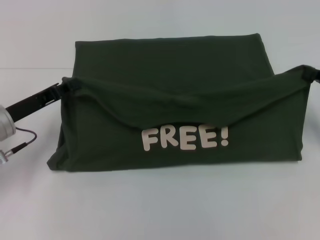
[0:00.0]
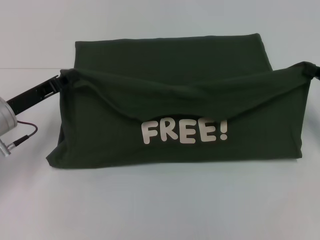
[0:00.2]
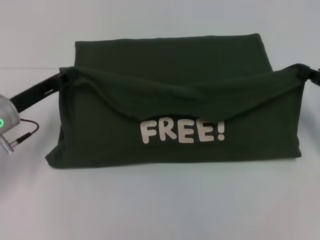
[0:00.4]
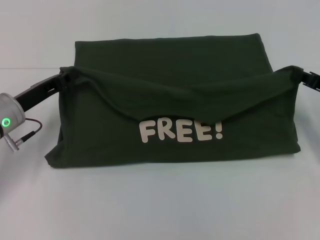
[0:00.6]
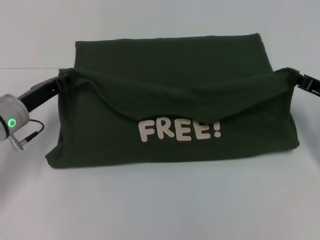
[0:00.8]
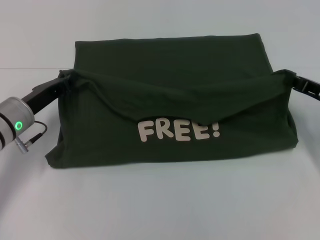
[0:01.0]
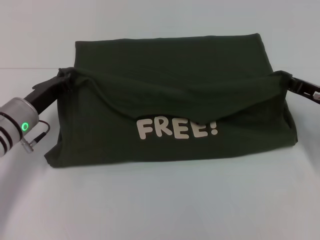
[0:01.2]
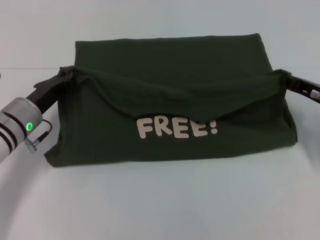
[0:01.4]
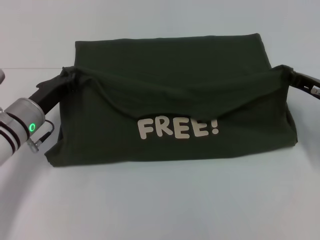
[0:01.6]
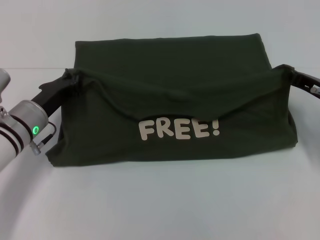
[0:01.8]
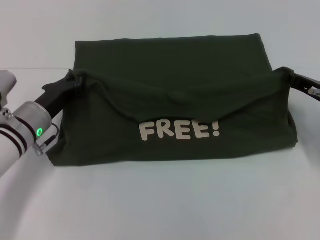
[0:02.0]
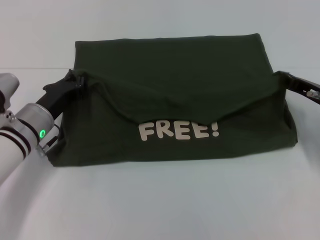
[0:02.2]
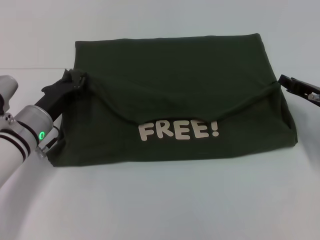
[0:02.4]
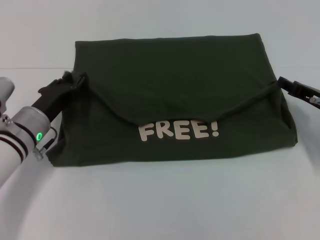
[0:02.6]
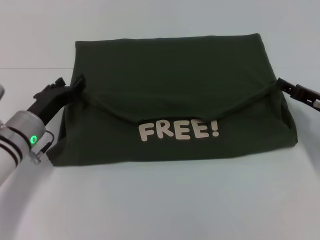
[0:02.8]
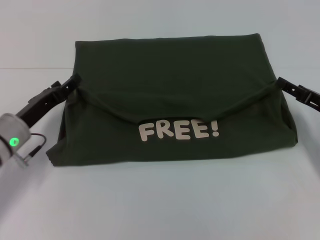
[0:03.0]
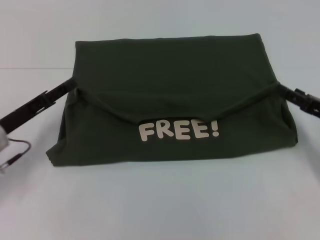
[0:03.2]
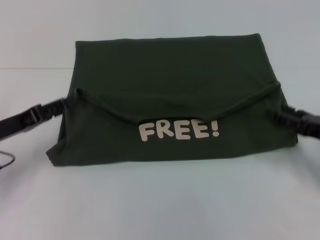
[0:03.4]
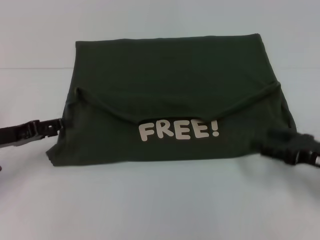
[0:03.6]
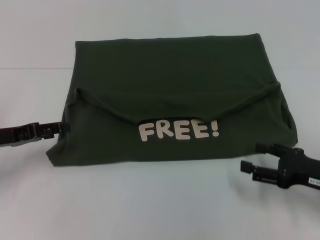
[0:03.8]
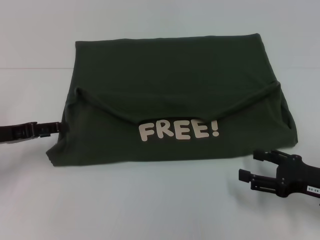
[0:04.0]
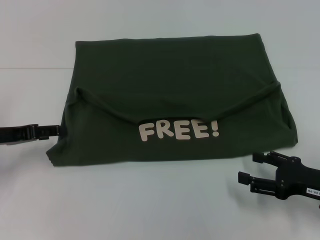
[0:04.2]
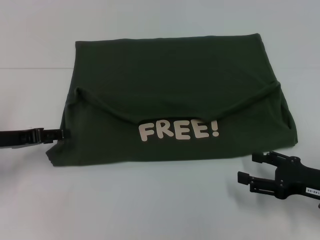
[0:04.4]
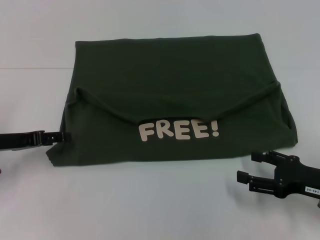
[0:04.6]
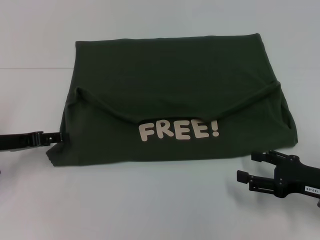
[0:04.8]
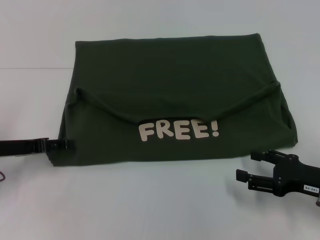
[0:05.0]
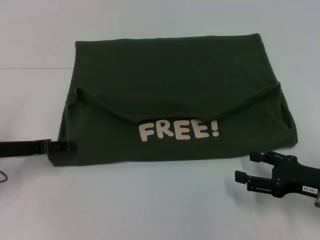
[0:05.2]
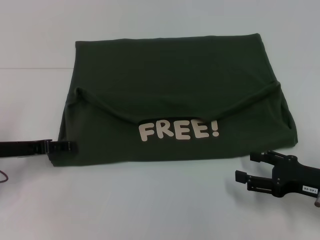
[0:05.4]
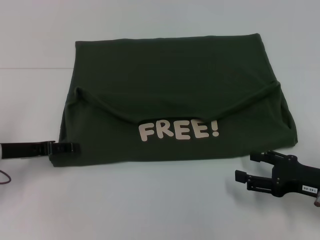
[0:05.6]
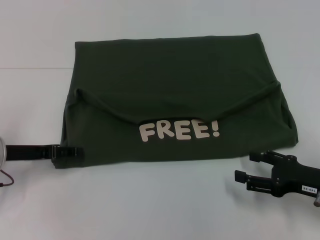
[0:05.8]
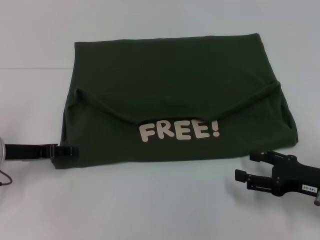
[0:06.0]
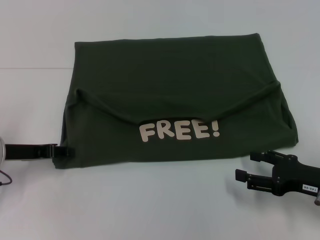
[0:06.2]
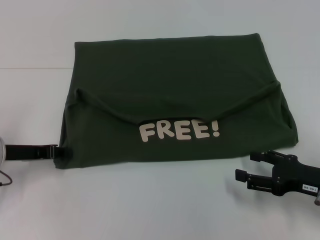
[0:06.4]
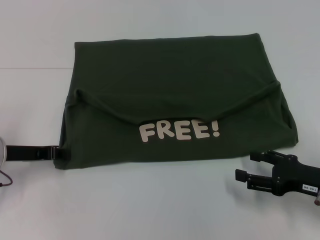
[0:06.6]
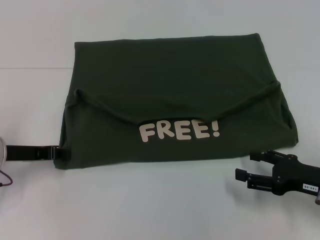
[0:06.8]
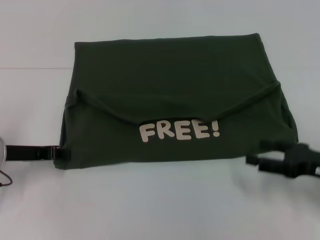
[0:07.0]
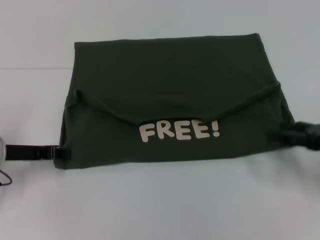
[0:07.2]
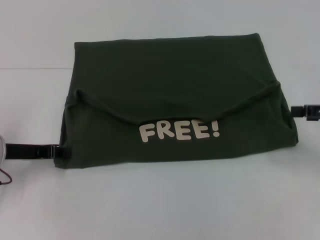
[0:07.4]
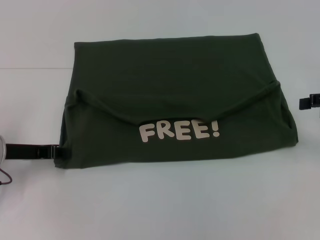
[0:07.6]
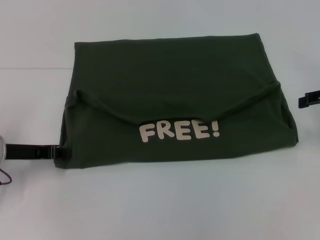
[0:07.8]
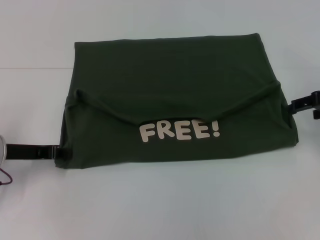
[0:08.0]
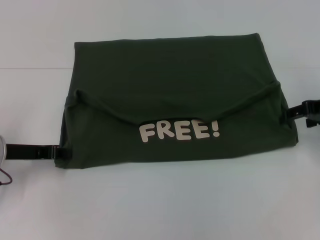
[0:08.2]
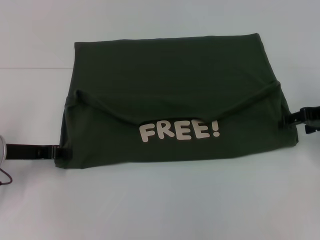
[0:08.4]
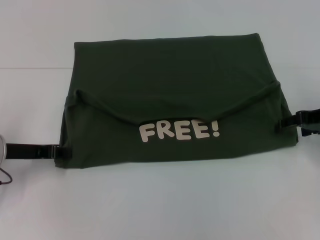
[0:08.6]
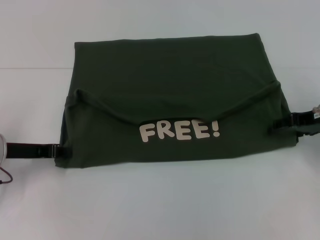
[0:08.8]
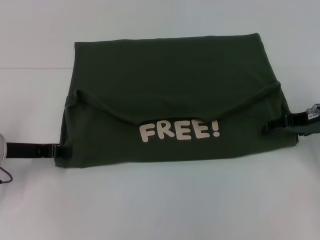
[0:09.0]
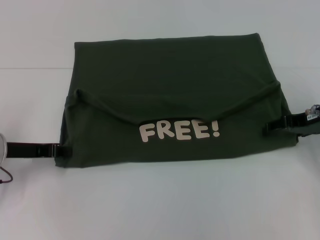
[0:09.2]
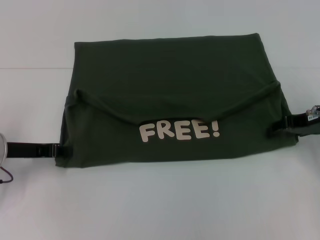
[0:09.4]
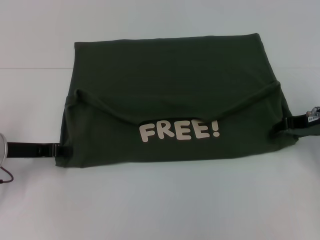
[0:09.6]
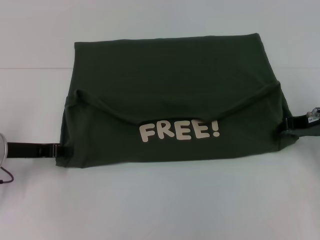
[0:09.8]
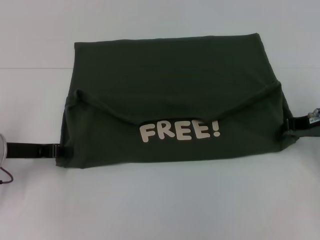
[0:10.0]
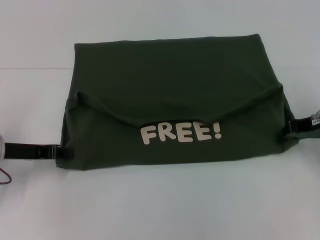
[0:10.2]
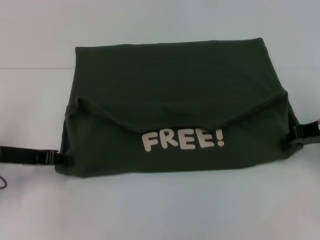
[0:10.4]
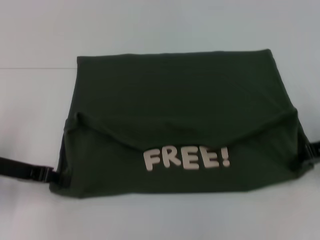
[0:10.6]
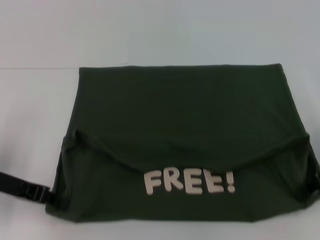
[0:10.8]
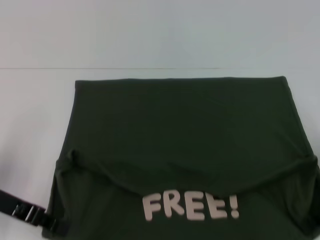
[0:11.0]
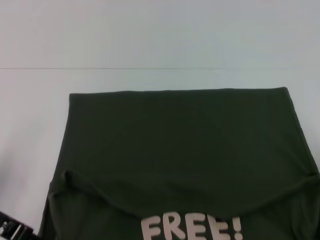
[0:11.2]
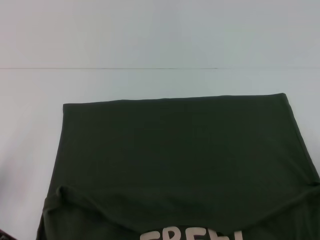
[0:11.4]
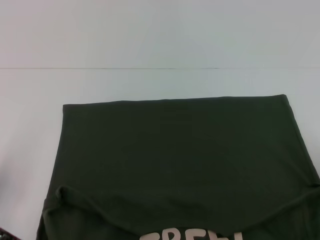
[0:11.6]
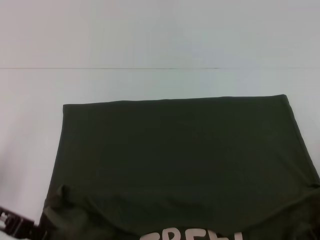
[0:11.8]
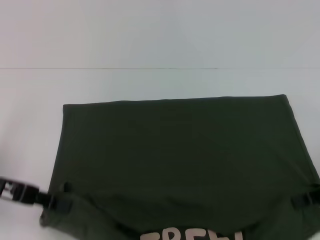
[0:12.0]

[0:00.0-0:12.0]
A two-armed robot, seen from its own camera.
Step, 0.0 to 2.6 s: Fold the clothes with your left hand.
Step, 0.0 to 2.6 s: Fold the clothes with your right hand.
Step, 2.8 to 11.4 s: Pull the clothes with your left hand.
Step, 2.8 to 11.4 s: Pull the clothes with your right hand.
0.0 to 1.6 s: The right gripper shifts some 5 cm to the left; the left gripper ends up roughly 5 cm from where it was.
1.6 to 3.0 s: The right gripper opens its fingers; the left gripper opens up.
3.0 to 4.4 s: The right gripper moves backward, approximately 10 cm. Meanwhile the left gripper heads to the left, covering approximately 5 cm.
4.4 to 6.0 s: The grippers stay close to where they were, moving slightly.
6.0 to 7.6 s: The right gripper goes some 20 cm upward, forward and to the right.
7.6 to 9.0 s: The right gripper shifts approximately 10 cm to the left and downward.
9.0 to 10.4 s: The right gripper closes its fingers.
10.4 to 12.0 s: The right gripper goes approximately 10 cm backward. The left gripper moves upward, some 5 cm.

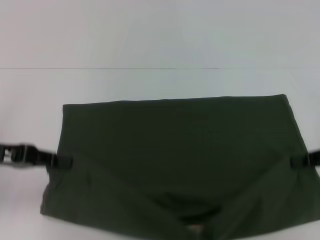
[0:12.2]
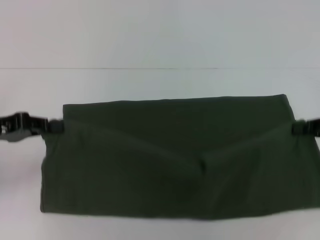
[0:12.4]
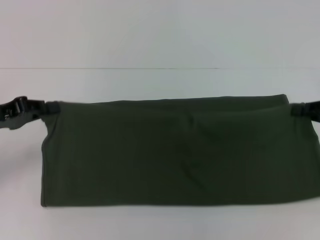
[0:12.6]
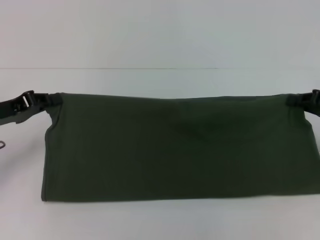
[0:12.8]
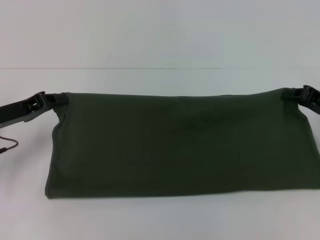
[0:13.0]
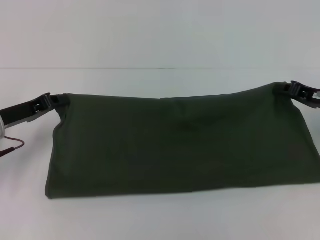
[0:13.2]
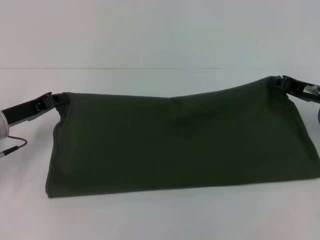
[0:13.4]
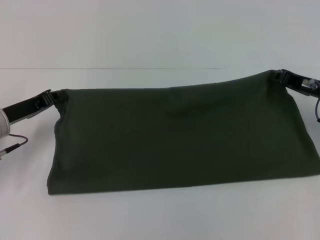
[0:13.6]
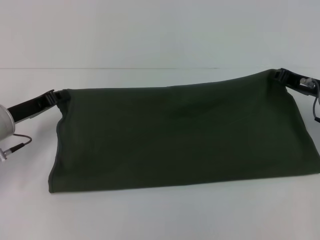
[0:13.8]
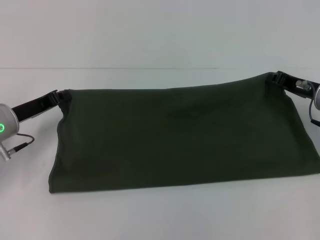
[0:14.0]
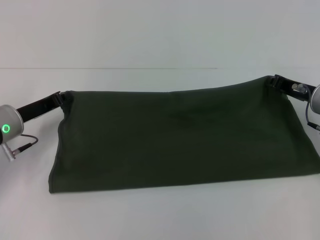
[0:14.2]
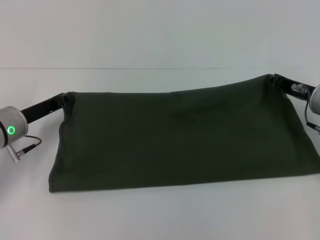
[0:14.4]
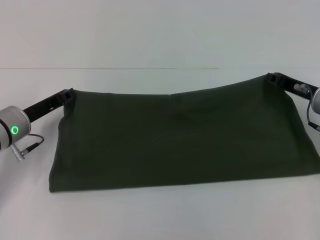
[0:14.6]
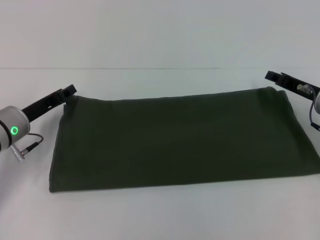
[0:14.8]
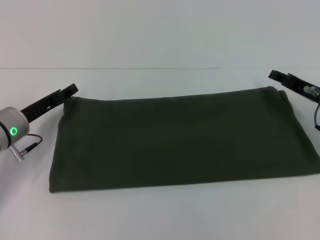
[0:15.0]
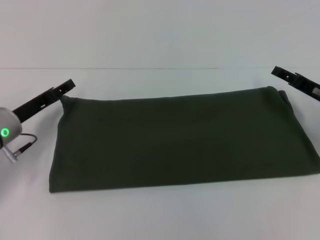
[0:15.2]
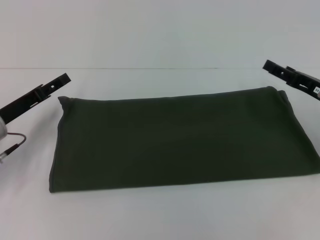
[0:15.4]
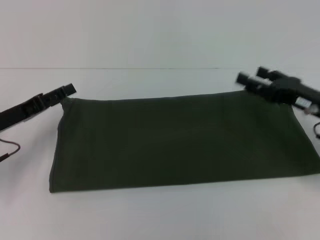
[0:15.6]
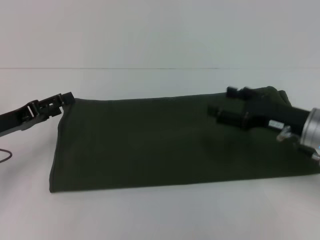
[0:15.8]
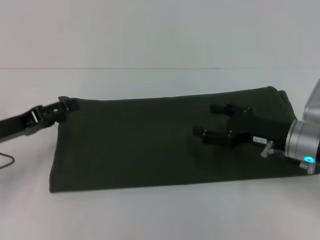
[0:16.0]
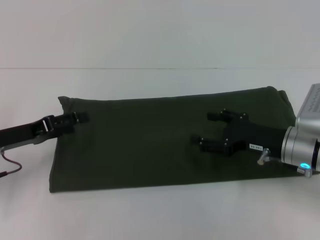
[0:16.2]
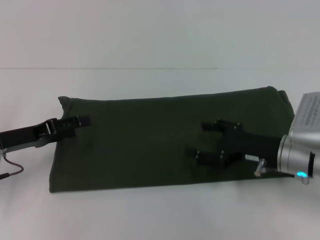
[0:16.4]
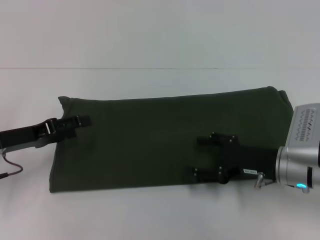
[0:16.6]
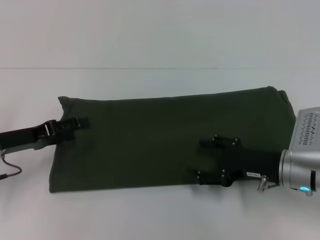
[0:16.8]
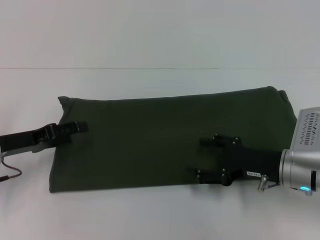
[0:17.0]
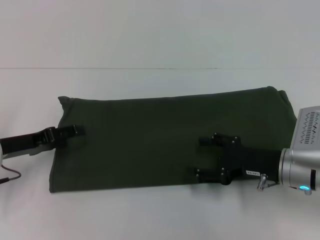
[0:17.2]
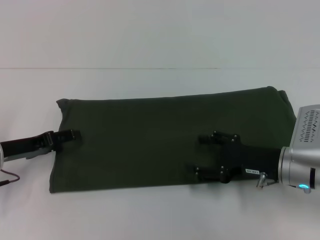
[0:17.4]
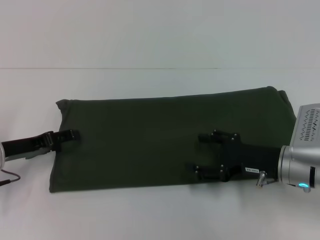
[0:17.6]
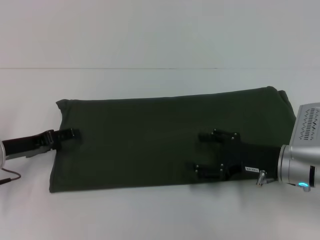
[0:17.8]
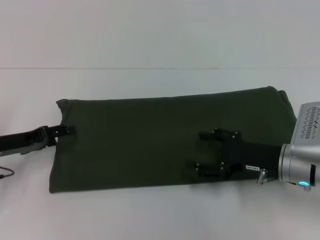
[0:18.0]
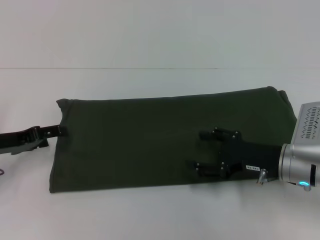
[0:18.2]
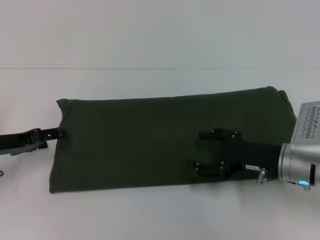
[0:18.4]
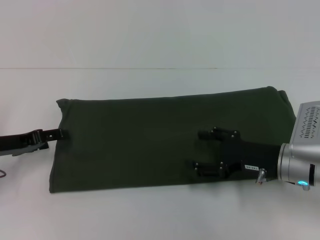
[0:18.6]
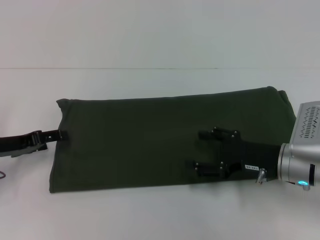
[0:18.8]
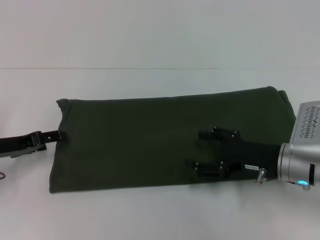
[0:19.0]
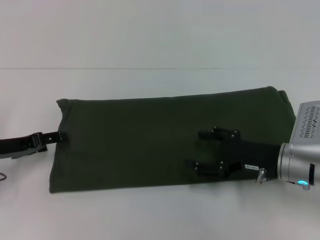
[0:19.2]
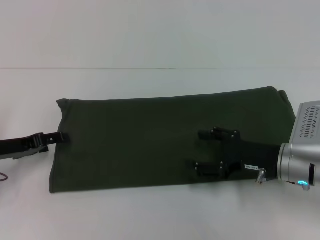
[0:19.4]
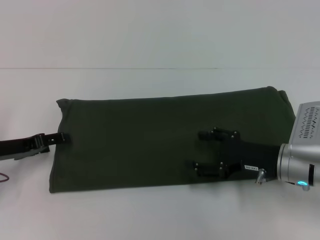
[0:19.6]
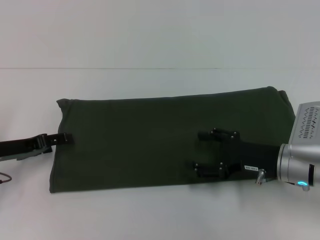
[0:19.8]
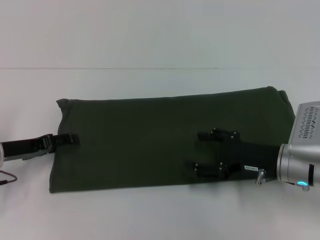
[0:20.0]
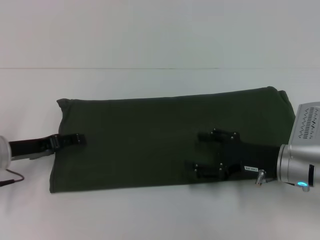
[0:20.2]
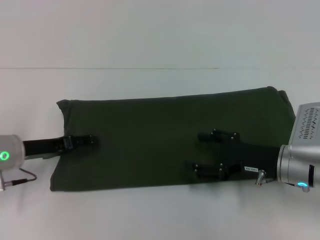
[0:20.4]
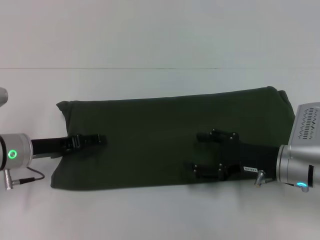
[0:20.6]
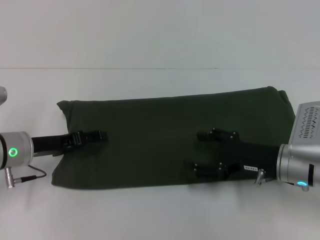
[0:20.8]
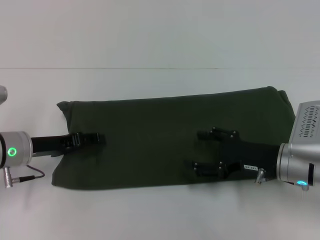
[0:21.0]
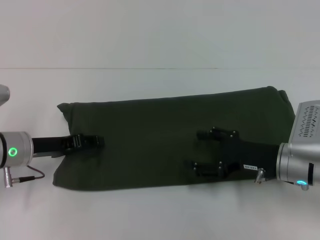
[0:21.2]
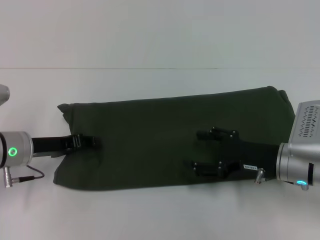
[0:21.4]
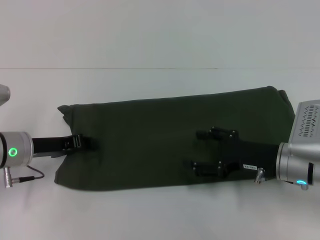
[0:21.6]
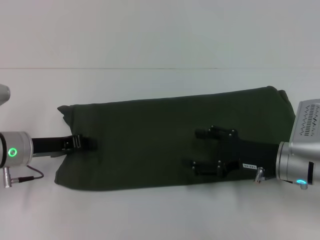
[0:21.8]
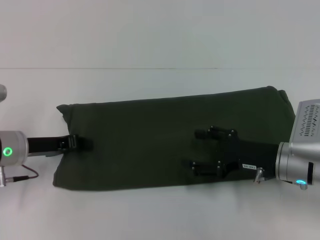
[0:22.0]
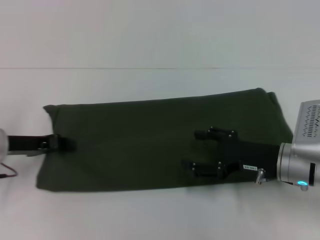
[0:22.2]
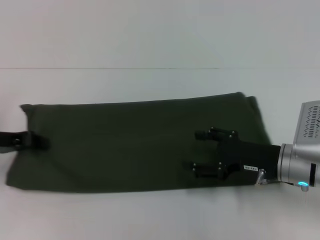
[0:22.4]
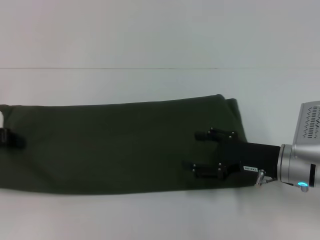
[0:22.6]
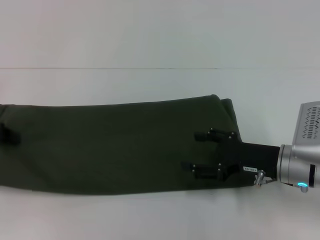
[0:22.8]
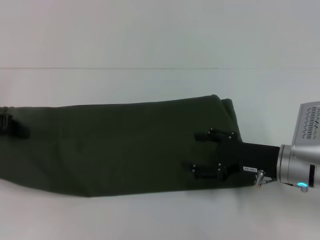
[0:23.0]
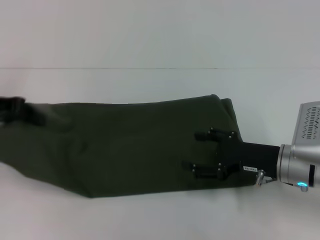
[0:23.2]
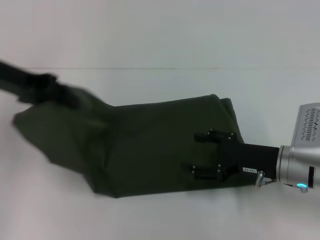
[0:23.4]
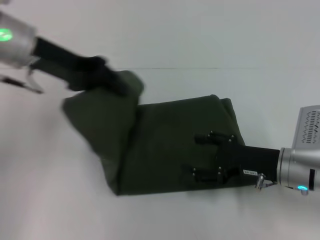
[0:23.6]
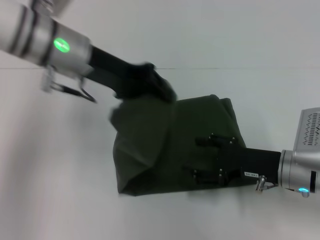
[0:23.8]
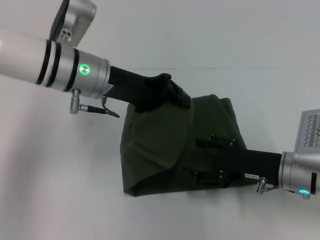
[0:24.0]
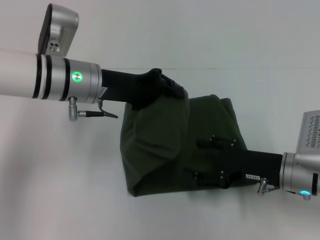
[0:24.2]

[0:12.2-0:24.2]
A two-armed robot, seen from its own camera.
Step, 12.2 to 15.2 s: Fold the clothes with your right hand.
12.2 to 13.8 s: The right gripper is displaced forward and to the left by about 10 cm. The left gripper moves downward and forward, some 10 cm.
13.8 to 15.2 s: The left gripper opens its fingers. Meanwhile the right gripper opens up.
15.2 to 16.6 s: The right gripper travels to the left and backward by roughly 10 cm. Meanwhile the left gripper opens.
16.6 to 19.8 s: There are only small adjustments of the grippers.
19.8 to 21.2 s: The left gripper moves to the right, some 5 cm.
21.2 to 22.6 s: The left gripper heads to the left and upward, covering approximately 10 cm, and closes its fingers.
22.6 to 24.2 s: The left gripper shifts roughly 20 cm to the right.
